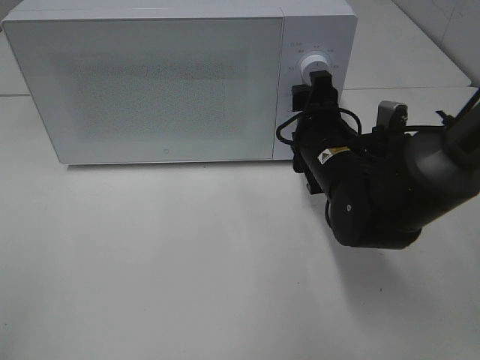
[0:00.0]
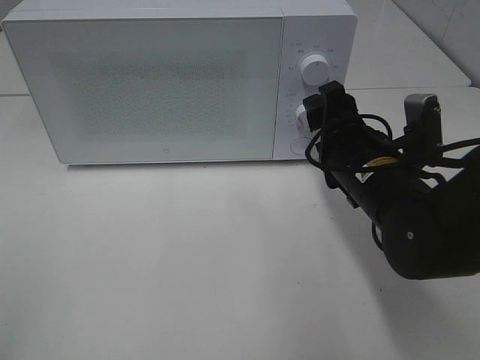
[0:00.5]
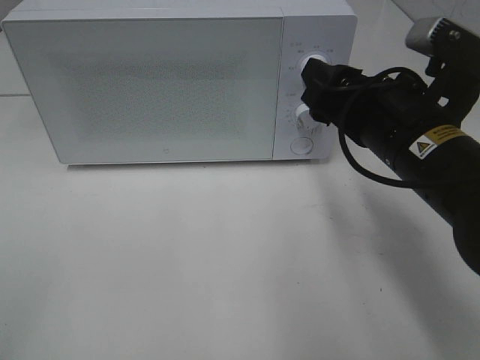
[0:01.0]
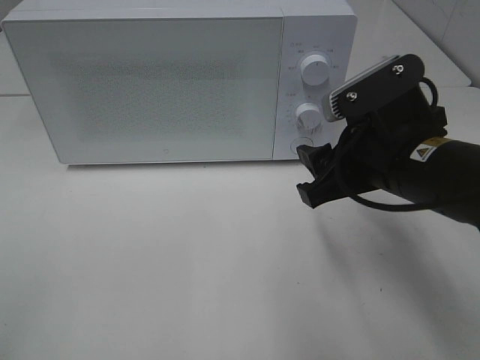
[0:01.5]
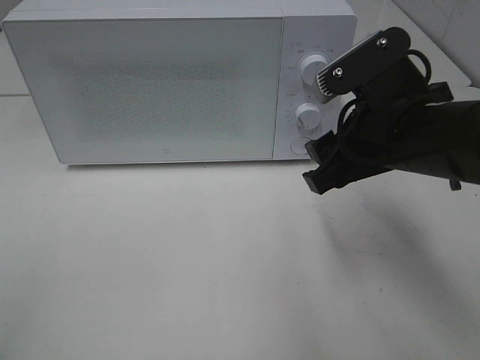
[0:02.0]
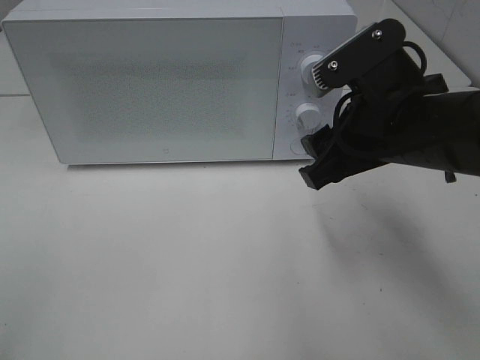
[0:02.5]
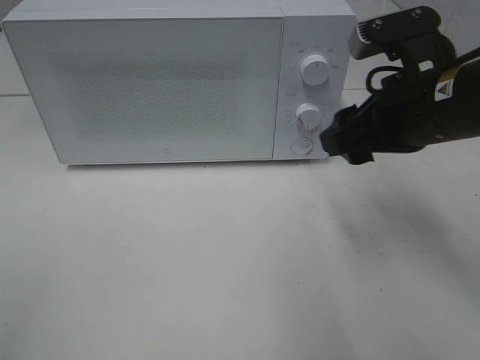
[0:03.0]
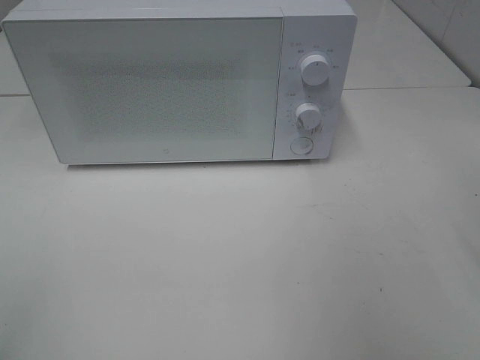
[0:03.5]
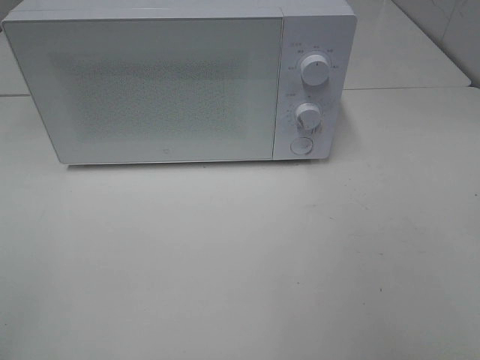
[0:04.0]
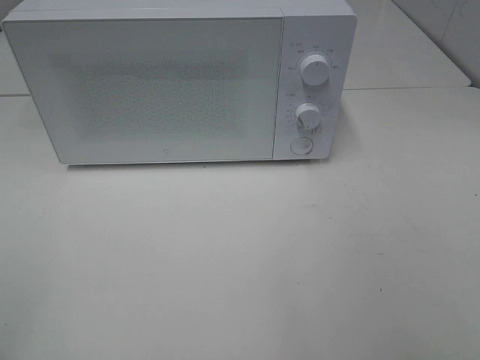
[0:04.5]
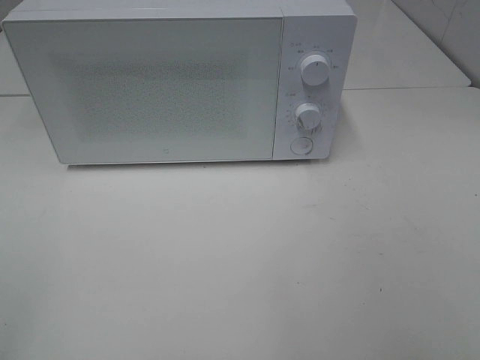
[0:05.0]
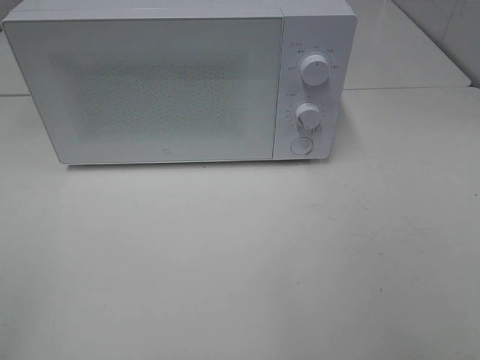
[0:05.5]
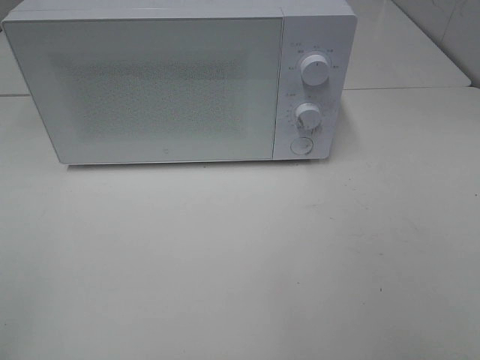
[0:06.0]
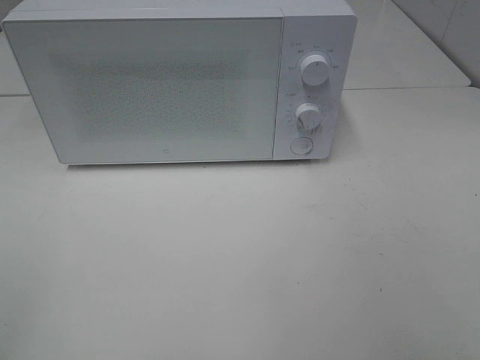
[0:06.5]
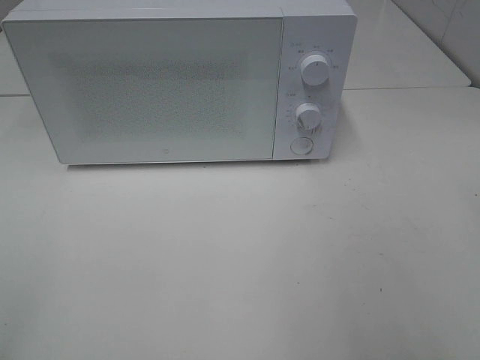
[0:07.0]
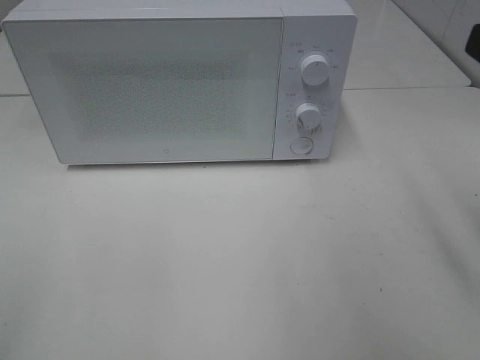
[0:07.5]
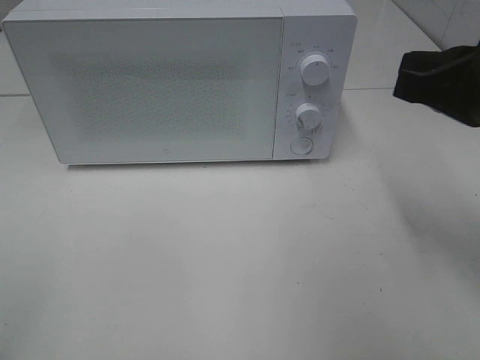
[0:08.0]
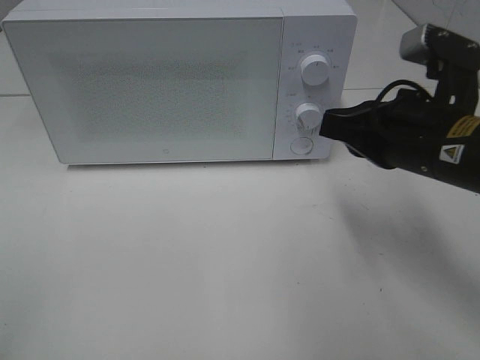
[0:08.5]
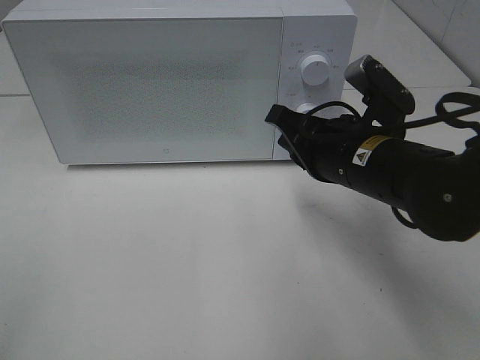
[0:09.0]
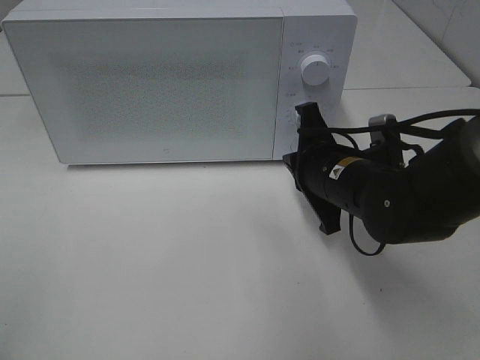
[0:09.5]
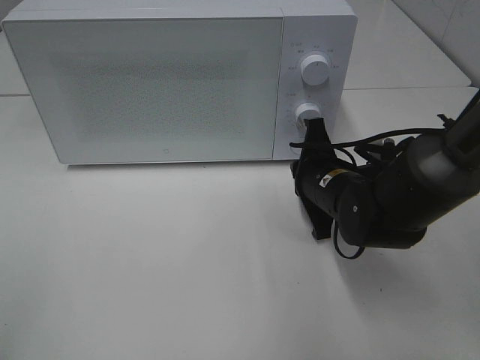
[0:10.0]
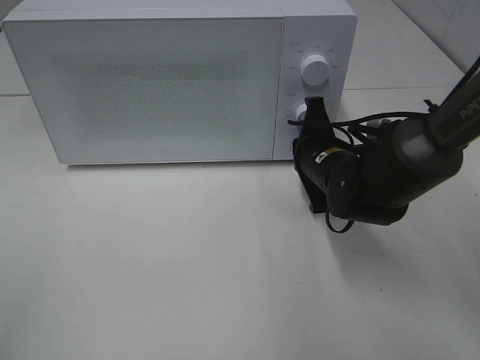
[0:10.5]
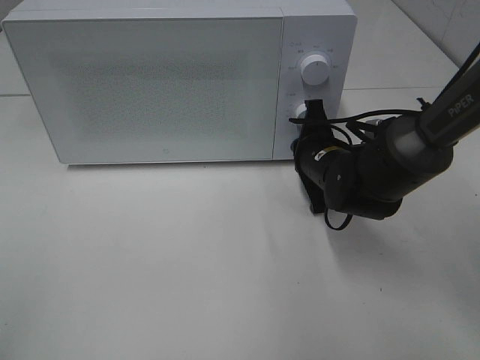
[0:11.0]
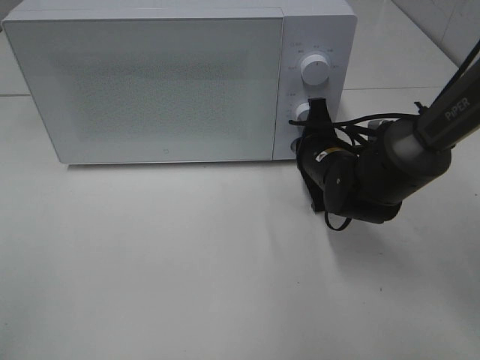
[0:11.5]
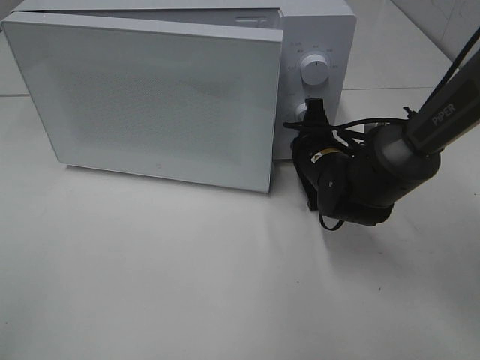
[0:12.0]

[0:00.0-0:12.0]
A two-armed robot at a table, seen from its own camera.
Task of the whole recording: Heat Sandwich.
0.0 to 2.0 s: The right gripper shifts roughly 10 cm upward and backward.
2.0 to 4.0 s: The right gripper is displaced backward, to the right and upward by roughly 25 cm.
6.0 to 8.0 s: The right gripper goes approximately 20 cm forward, and closes.
8.0 to 10.0 s: The right gripper travels downward, forward and to the left by roughly 20 cm.
10.0 to 12.0 s: The right gripper goes about 5 cm forward.

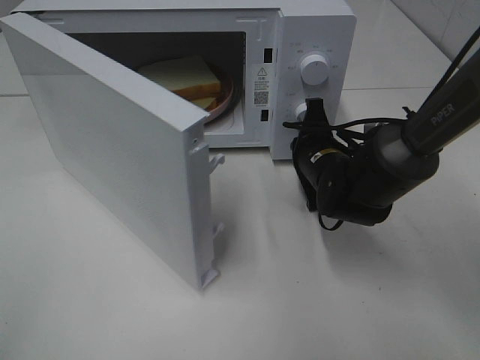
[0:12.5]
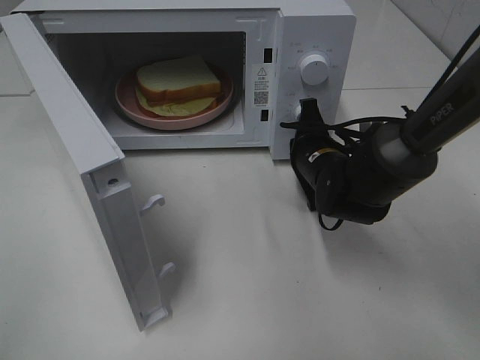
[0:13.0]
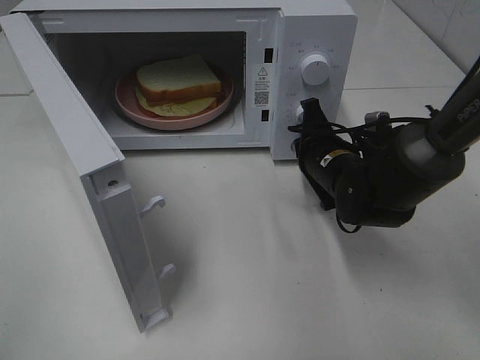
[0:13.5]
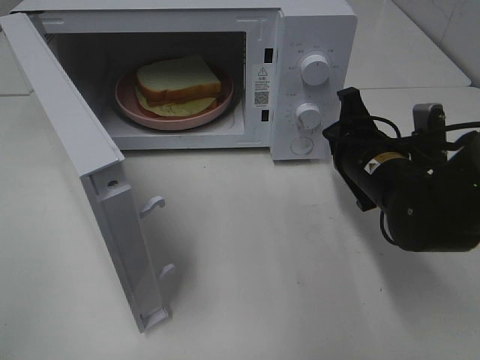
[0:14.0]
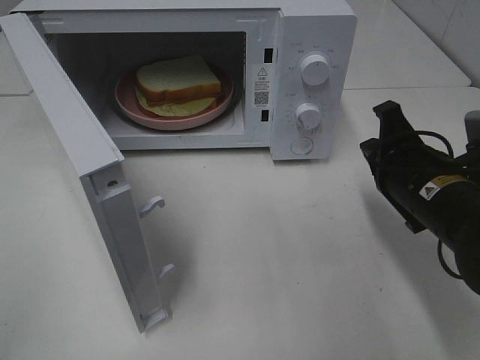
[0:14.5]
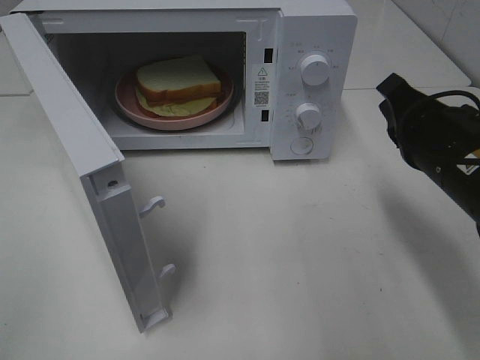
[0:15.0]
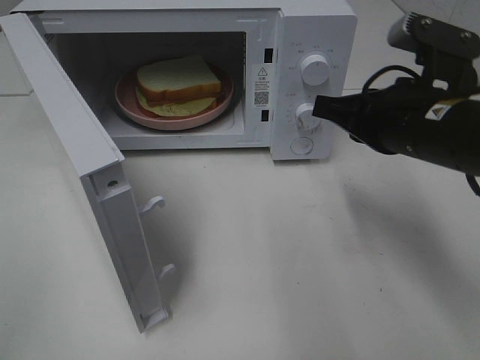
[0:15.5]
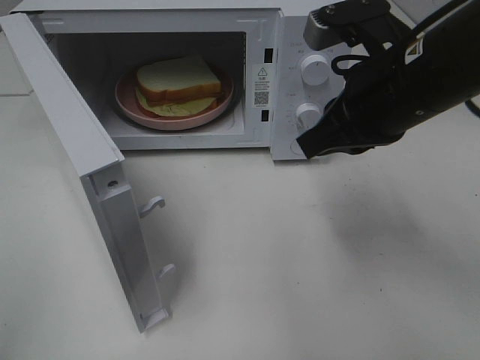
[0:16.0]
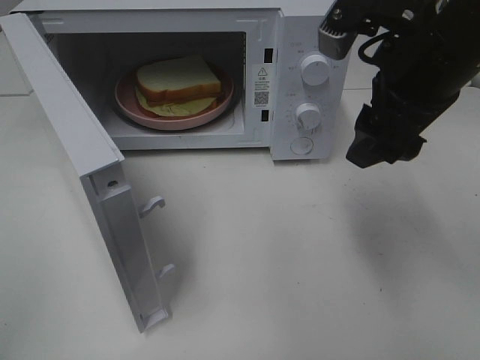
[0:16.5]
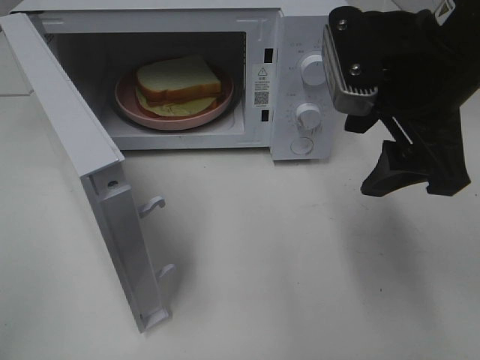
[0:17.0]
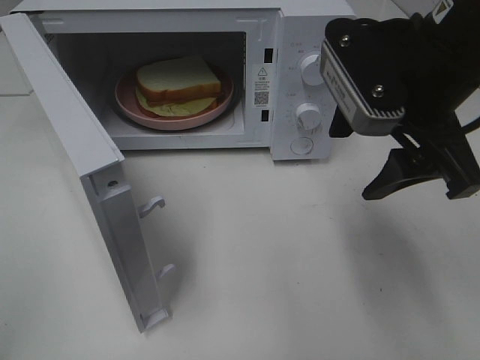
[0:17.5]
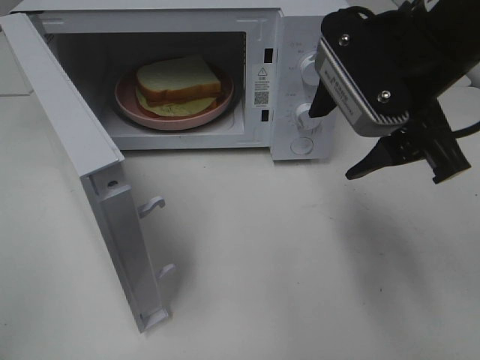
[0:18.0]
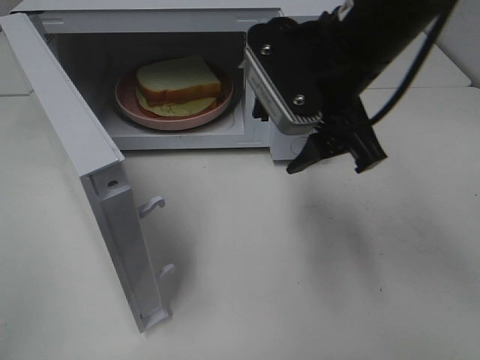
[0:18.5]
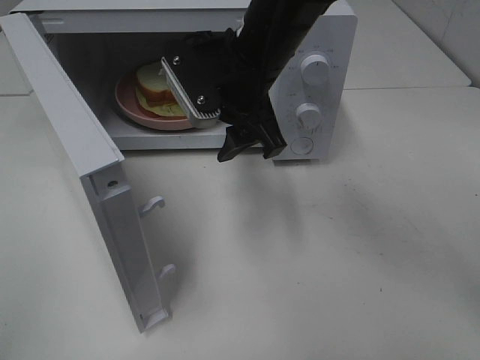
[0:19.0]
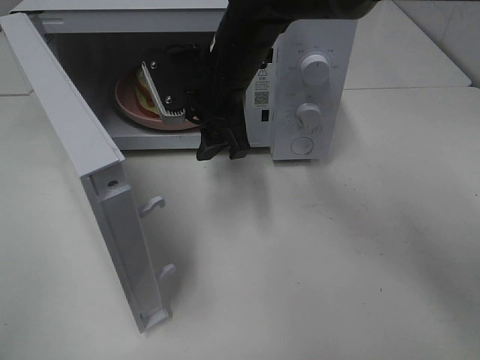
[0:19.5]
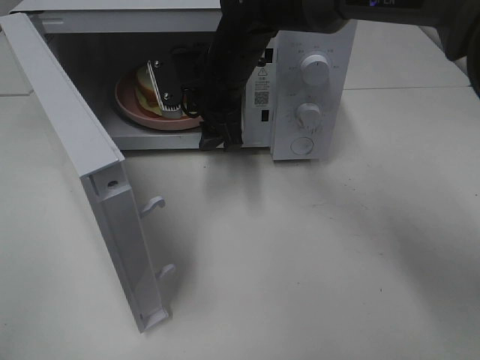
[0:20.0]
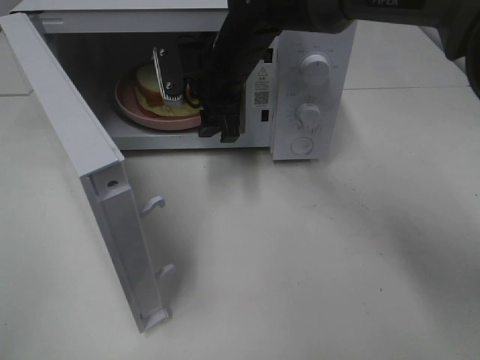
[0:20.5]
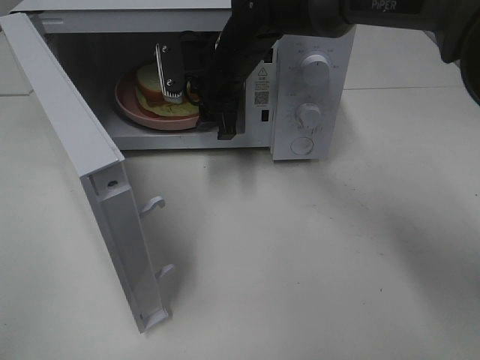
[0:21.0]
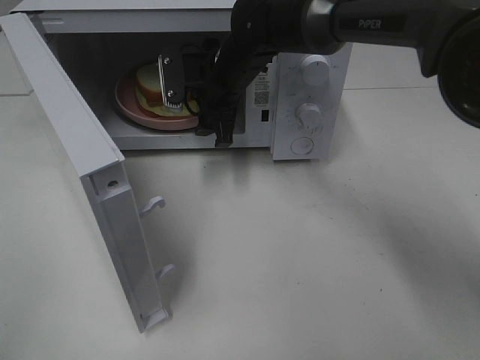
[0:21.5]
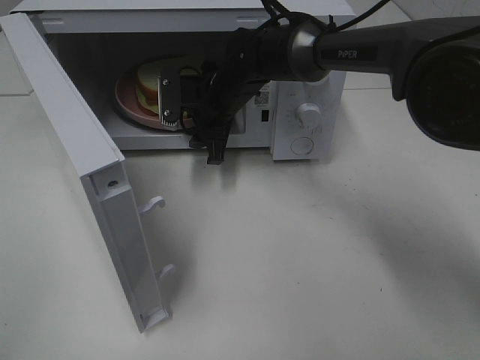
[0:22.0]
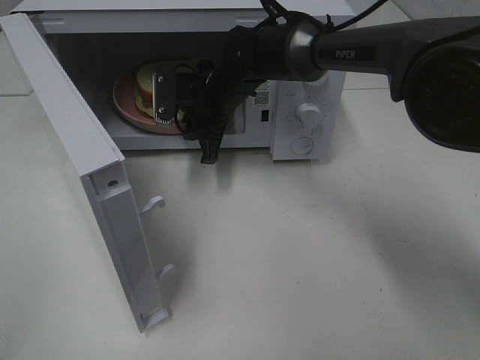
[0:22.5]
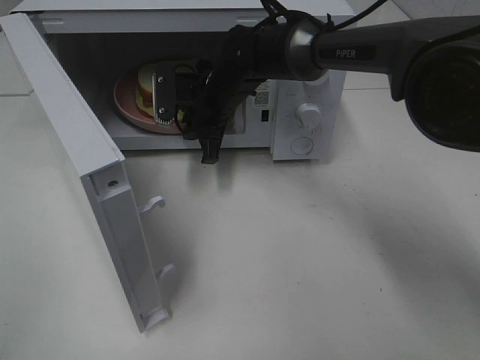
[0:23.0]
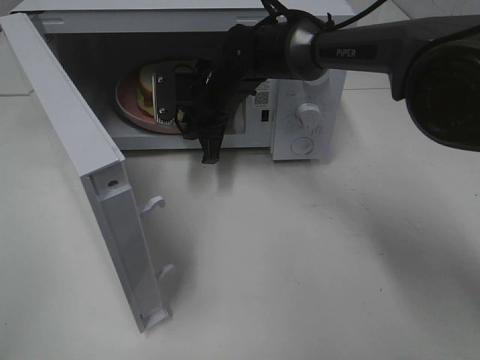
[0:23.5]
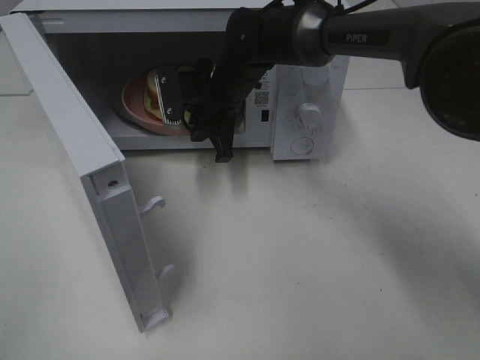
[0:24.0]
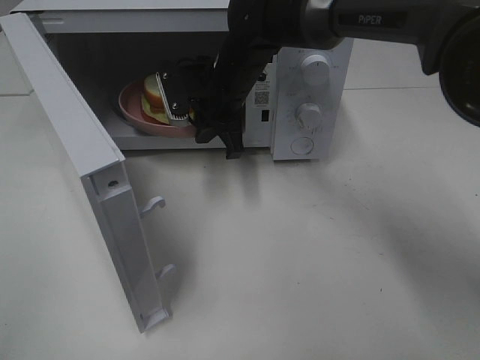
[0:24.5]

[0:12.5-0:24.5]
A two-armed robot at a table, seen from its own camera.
Task of the whole recording: Heat Sandwich.
Step, 14.0 to 22.5 s: Right hand: grab the plate with the sandwich.
12.5 to 14.5 s: The right gripper travels backward, to the right and upward by approximately 15 cm.
14.5 to 16.5 s: The right gripper travels upward by roughly 15 cm, and opens up.
16.5 to 18.5 s: The right gripper is displaced to the left by about 5 cm.
18.5 to 20.5 s: The right gripper travels forward, to the left and downward by roughly 20 cm.
20.5 to 22.5 s: The right gripper moves downward, approximately 5 cm, and closes.
22.5 to 24.5 s: The grippers stay close to where they were, moving slightly.

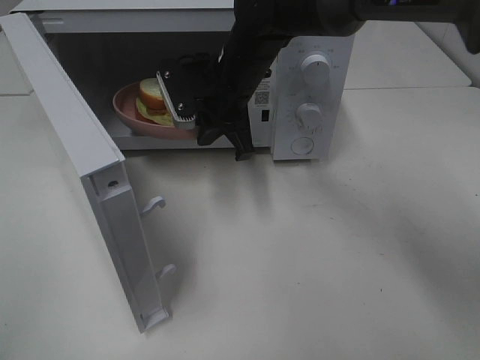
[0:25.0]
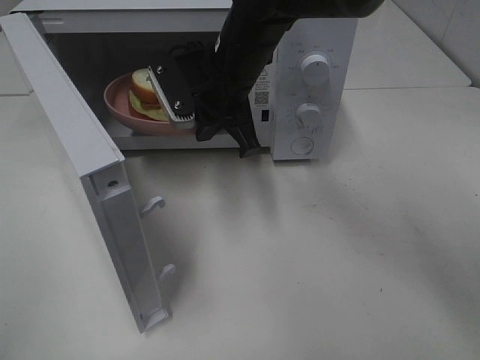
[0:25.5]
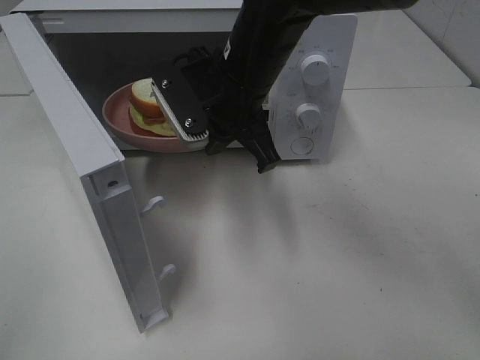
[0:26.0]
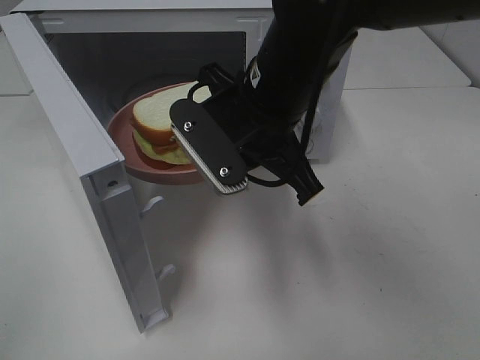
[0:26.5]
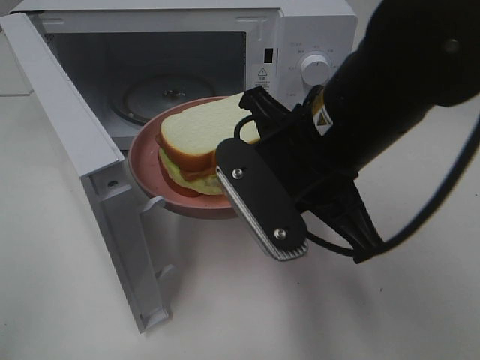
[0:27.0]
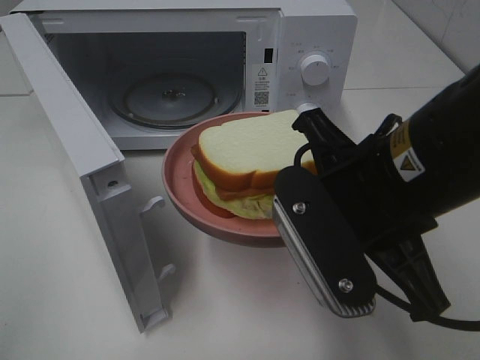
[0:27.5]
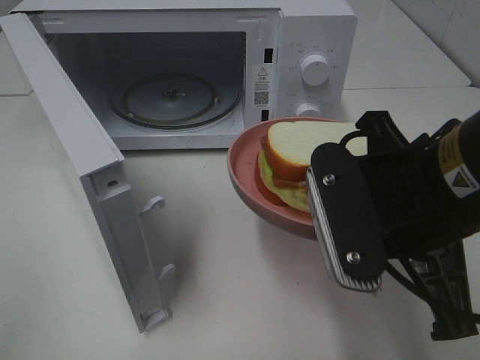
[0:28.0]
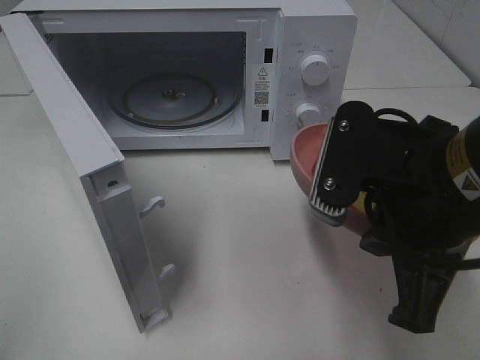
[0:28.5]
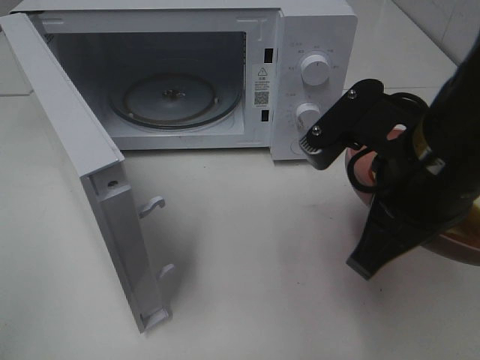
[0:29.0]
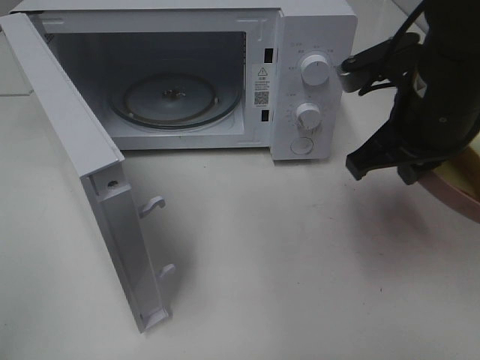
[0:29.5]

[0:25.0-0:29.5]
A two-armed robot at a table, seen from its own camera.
Task of the whole recording: Heat Sandwich.
25.0 to 27.0 s: The right gripper heads backward, covering about 20 cm.
27.0 to 29.5 s: The right gripper moves to the right and forward, approximately 10 cm.
